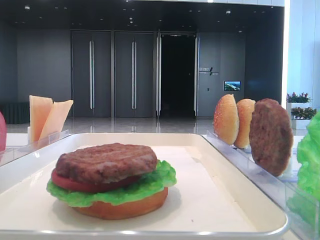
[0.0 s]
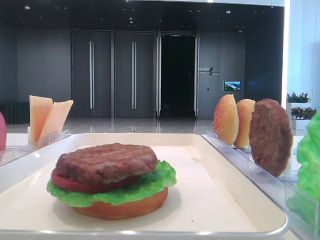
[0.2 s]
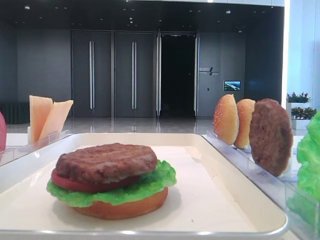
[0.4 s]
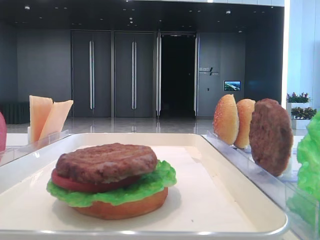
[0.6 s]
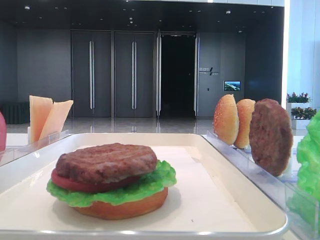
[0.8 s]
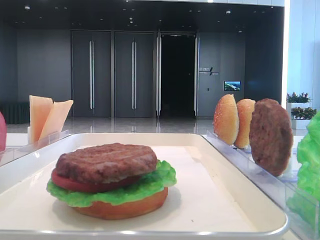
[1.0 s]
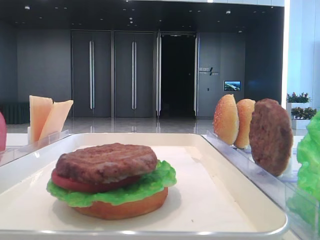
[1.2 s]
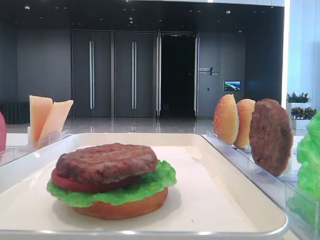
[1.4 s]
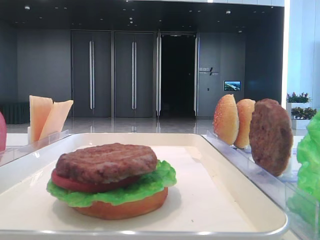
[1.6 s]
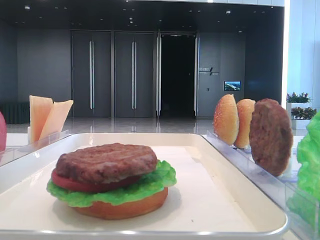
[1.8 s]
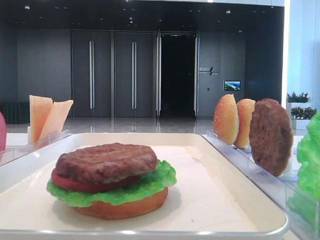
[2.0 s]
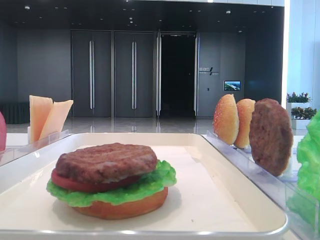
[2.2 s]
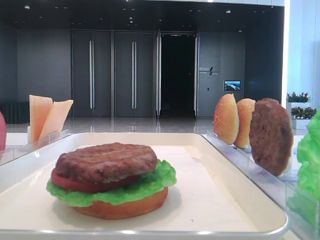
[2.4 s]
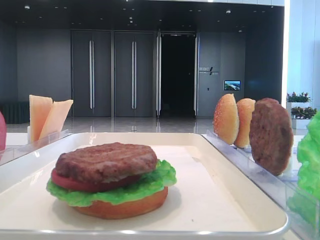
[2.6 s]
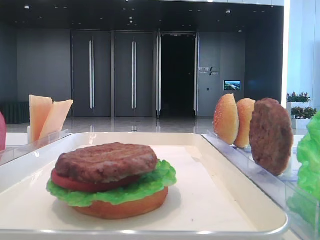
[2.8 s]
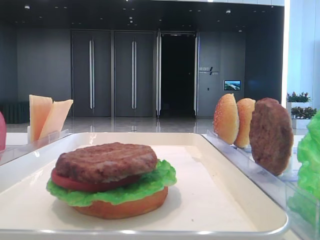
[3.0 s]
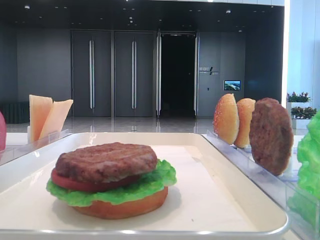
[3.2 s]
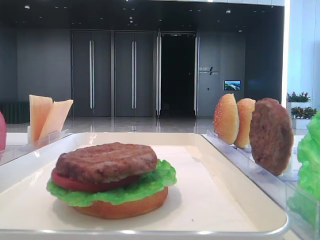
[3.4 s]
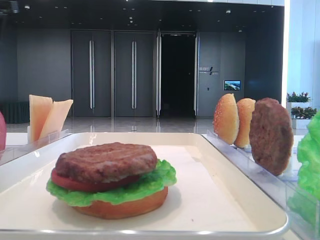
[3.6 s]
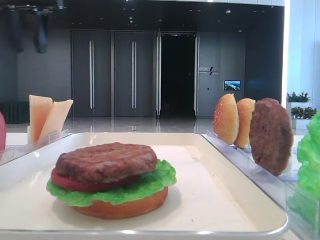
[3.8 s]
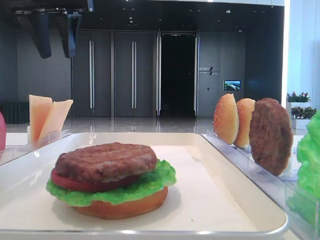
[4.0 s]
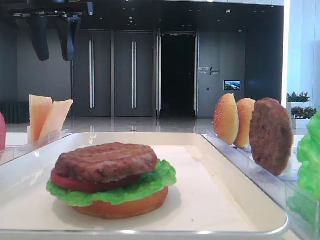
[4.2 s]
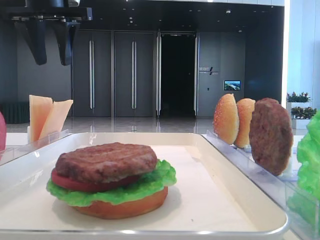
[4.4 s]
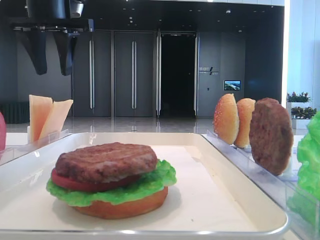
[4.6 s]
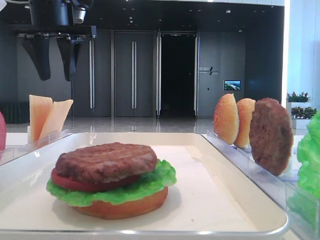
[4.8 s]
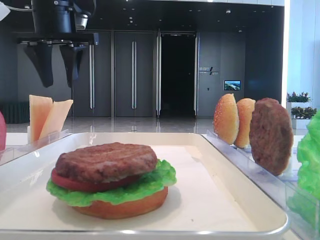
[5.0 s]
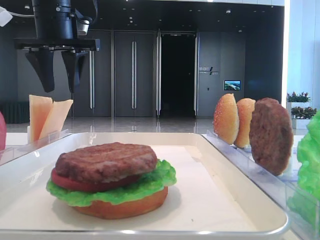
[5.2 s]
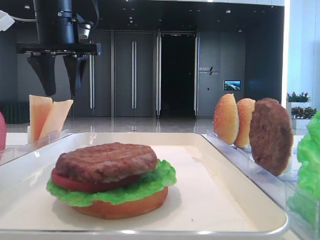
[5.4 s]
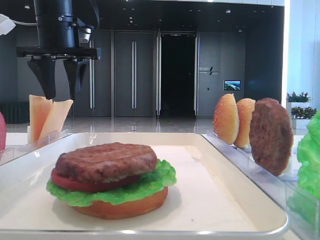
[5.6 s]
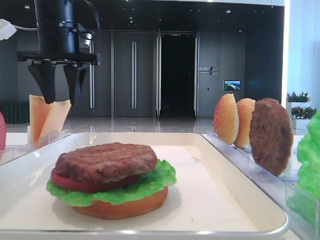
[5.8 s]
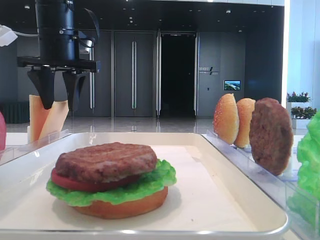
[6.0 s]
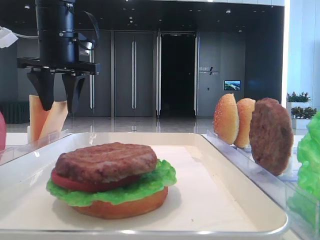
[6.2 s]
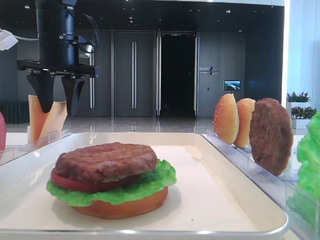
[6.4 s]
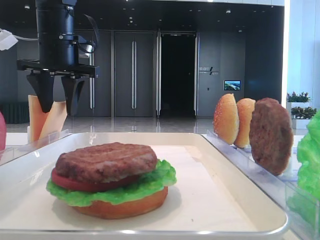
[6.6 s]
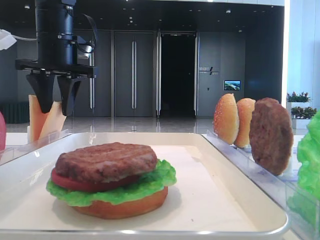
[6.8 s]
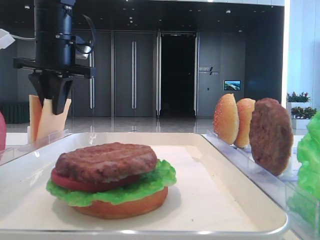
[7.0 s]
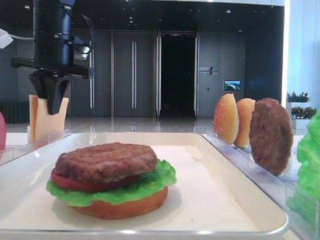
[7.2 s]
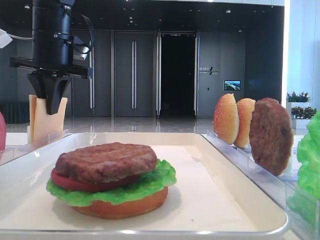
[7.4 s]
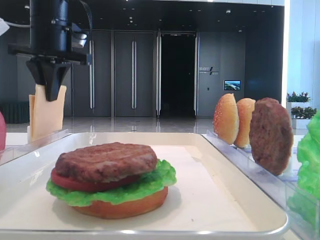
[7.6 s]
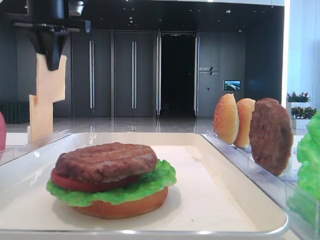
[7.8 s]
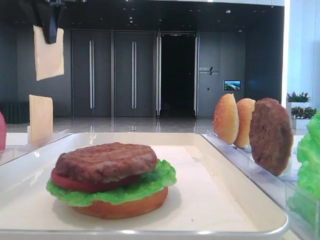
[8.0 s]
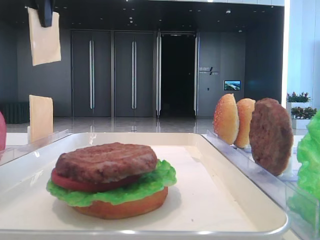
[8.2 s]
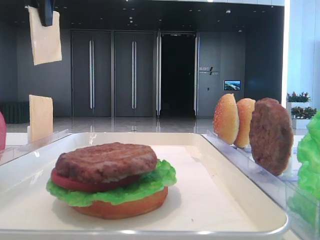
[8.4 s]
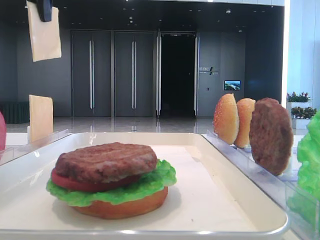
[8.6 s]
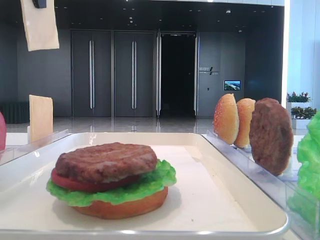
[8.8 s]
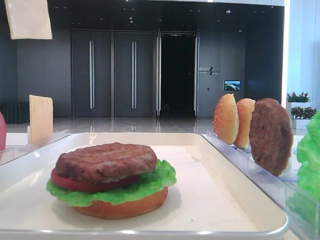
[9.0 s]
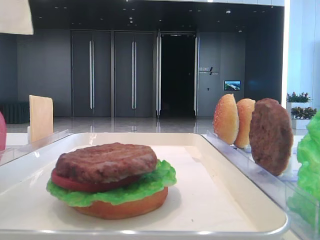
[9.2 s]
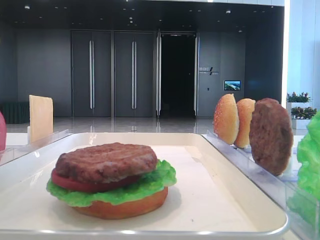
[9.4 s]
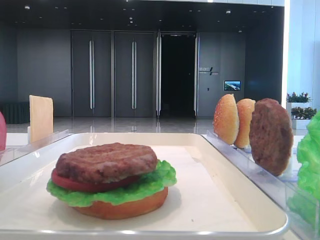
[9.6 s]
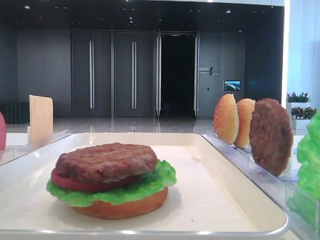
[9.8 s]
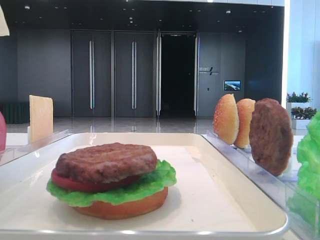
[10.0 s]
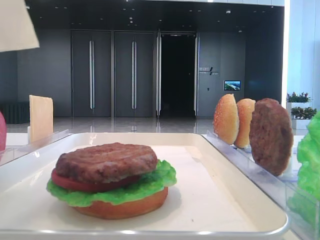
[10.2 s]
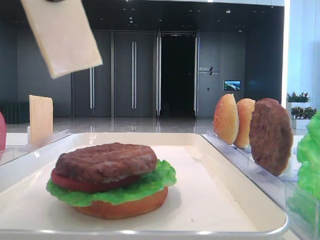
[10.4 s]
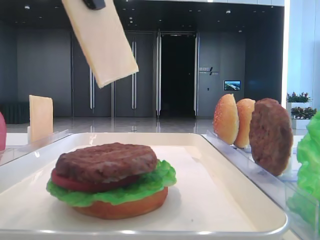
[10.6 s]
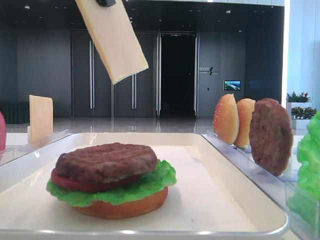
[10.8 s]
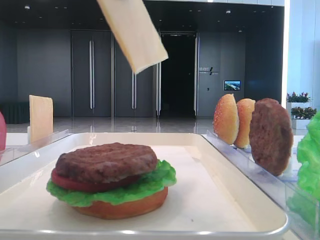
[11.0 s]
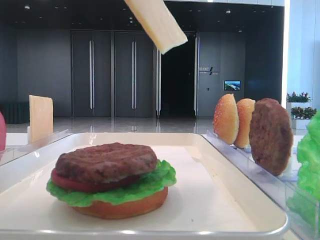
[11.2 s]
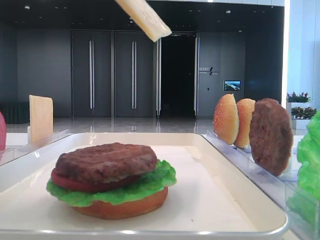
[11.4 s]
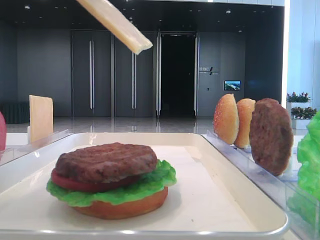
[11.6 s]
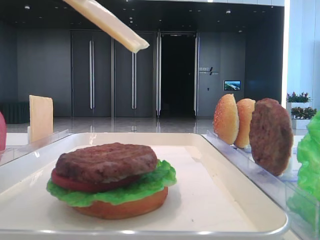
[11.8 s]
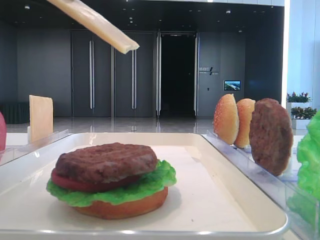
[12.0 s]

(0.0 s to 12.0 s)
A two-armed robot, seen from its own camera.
Step, 0.0 s - 7.2 s: Pick up the cheese slice with the left hand.
1.6 s - 3.0 s: The left gripper is displaced forward by about 40 cm.
3.0 s - 4.4 s: The left gripper heads to the right, covering approximately 15 cm.
4.4 s - 6.0 s: The left gripper travels downward by approximately 10 cm.
6.0 s - 7.6 s: The left gripper closes up.
7.6 s - 9.0 s: The left gripper shifts roughly 20 cm backward and upward.
9.0 s - 10.4 s: The left gripper travels backward, downward and to the right by about 15 cm.
10.4 s - 12.0 s: The left gripper shifts about 10 cm downward and to the left.

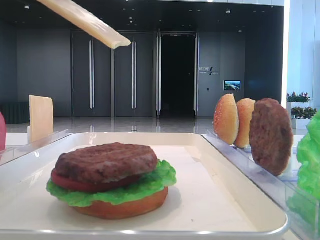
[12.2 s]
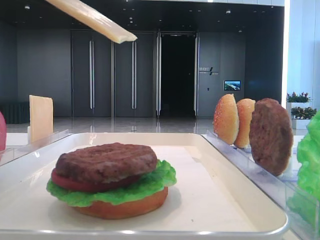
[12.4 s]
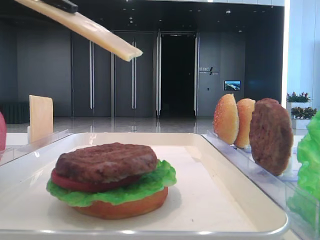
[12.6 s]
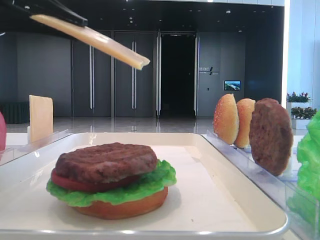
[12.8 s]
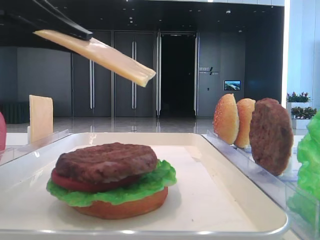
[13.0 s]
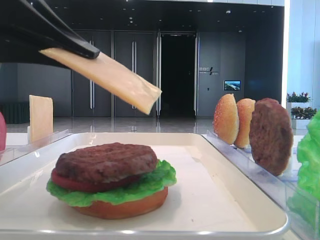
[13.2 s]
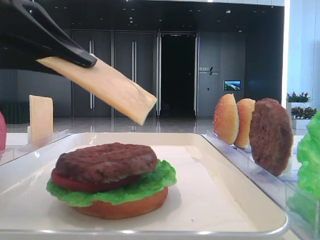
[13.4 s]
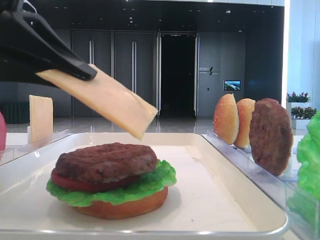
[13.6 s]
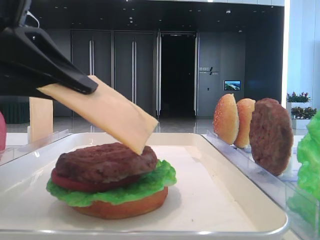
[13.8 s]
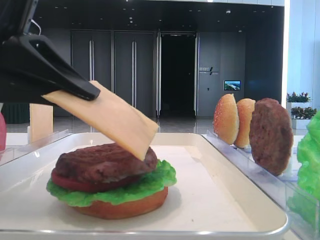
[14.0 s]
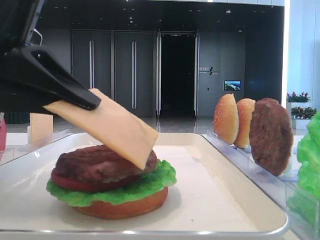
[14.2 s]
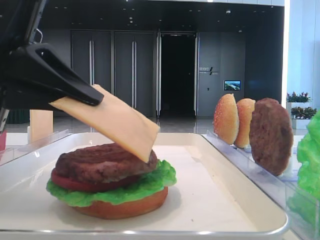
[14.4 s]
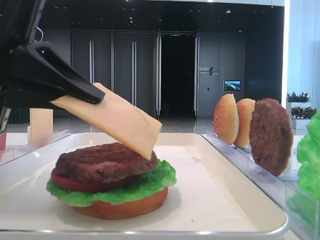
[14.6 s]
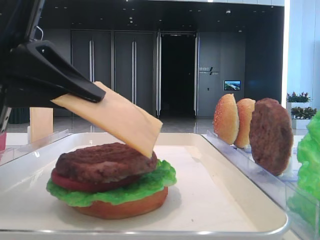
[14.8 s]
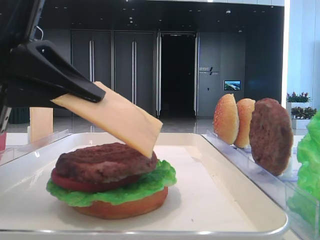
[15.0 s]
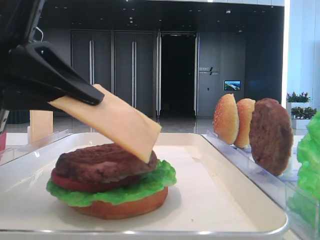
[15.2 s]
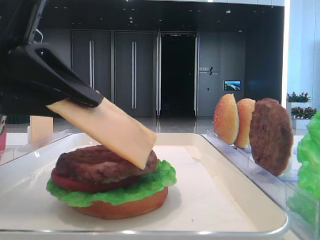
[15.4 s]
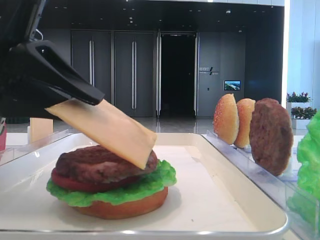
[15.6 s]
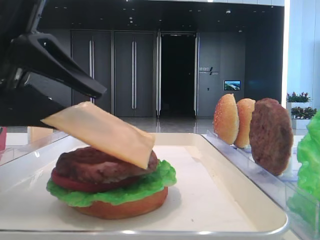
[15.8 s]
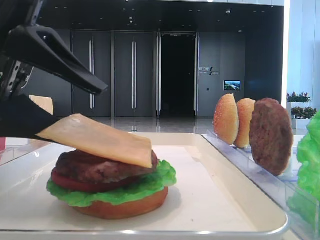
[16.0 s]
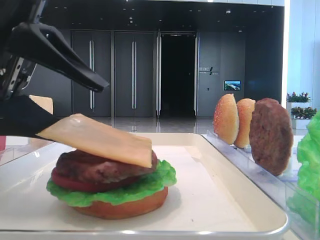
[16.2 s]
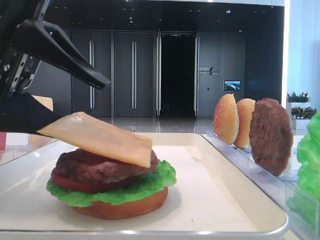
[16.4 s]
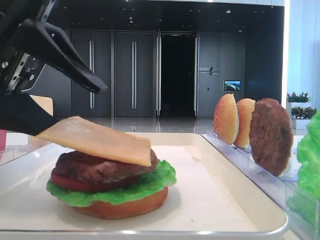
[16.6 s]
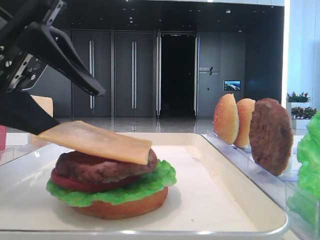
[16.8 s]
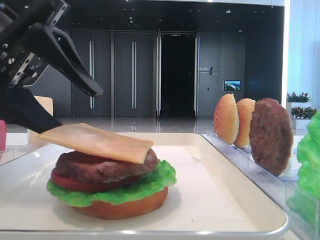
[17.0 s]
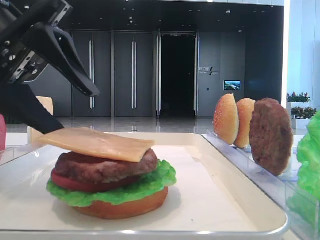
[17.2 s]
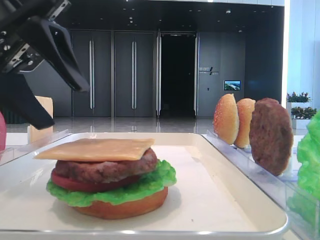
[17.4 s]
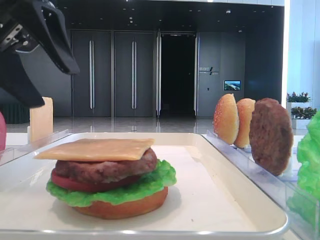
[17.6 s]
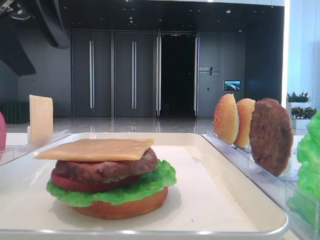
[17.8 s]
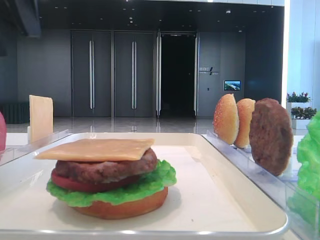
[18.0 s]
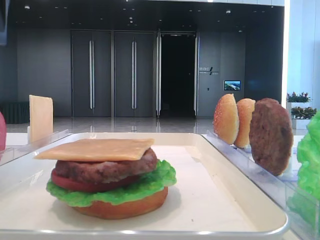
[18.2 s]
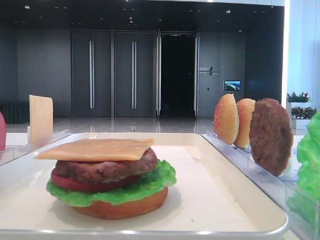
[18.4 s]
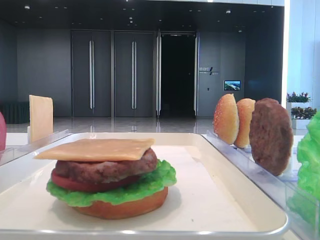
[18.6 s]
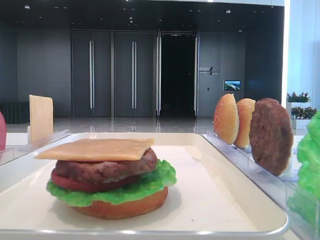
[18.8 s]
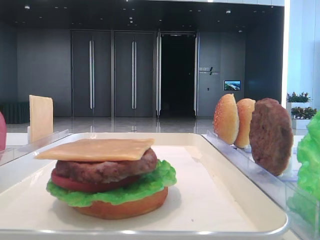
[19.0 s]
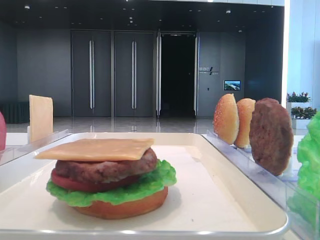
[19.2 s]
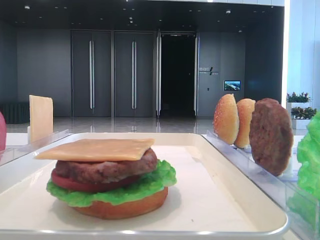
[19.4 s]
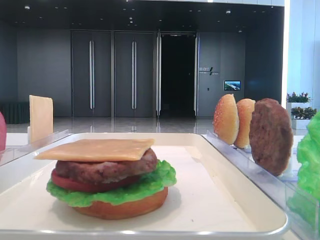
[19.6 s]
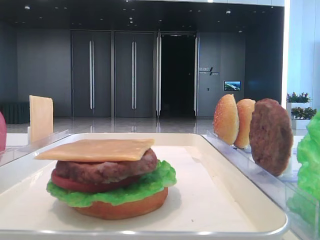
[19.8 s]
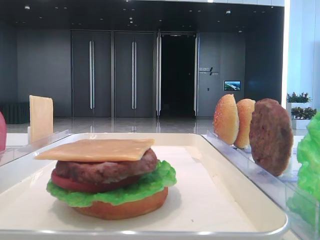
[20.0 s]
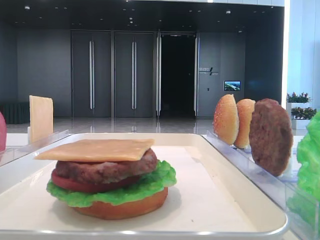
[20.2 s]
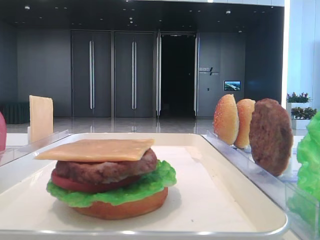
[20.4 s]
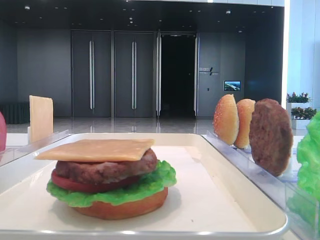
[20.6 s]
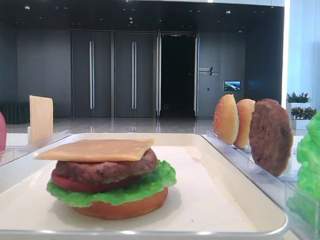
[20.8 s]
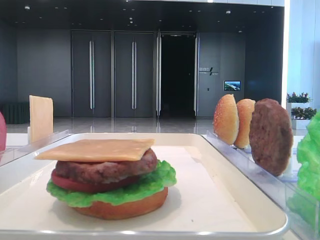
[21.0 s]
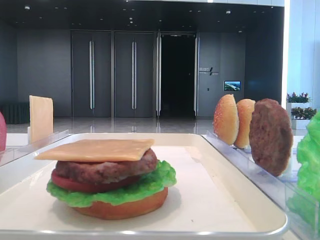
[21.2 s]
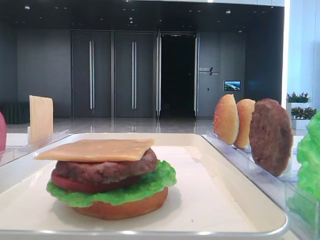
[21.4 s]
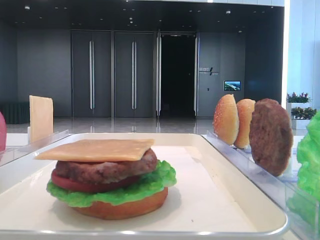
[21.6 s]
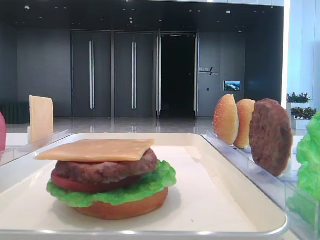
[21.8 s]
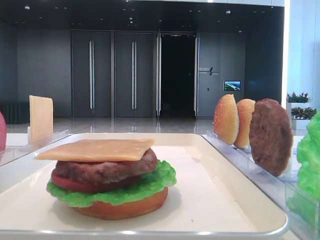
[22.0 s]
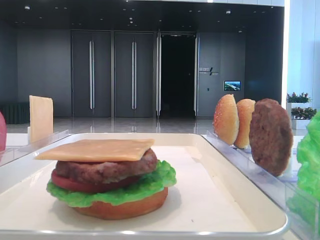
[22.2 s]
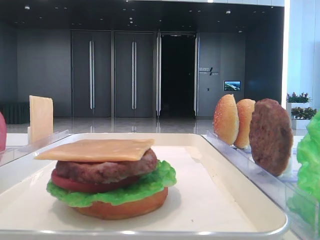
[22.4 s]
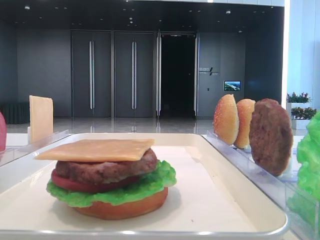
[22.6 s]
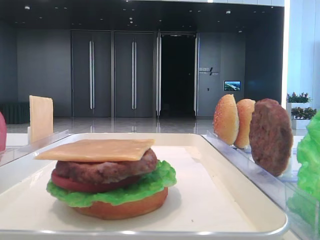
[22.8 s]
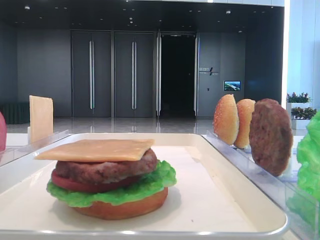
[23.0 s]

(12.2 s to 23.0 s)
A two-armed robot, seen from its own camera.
Step, 12.2 s - 17.0 s: Place the cheese slice on the patty with the left hand.
12.2 s - 13.8 s: The left gripper shifts some 5 cm downward.
13.8 s - 15.2 s: The two grippers keep their place.
15.2 s - 16.8 s: The left gripper opens.
16.8 s - 18.4 s: The left gripper shifts roughly 15 cm upward and to the left.
21.4 s - 23.0 s: The two grippers keep their place.
